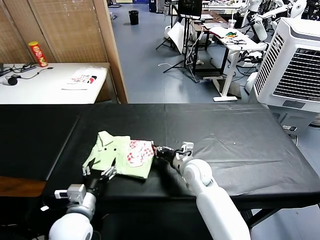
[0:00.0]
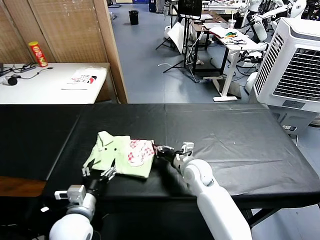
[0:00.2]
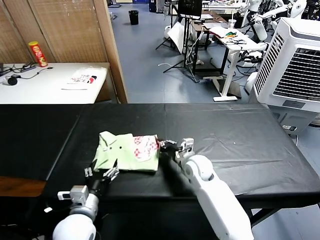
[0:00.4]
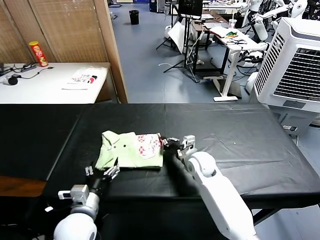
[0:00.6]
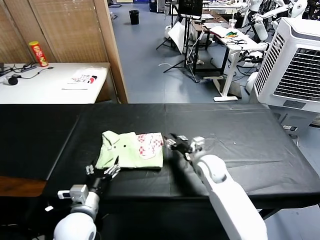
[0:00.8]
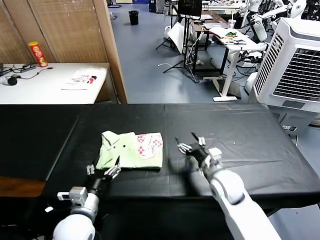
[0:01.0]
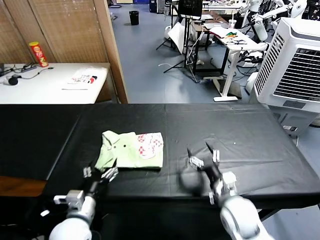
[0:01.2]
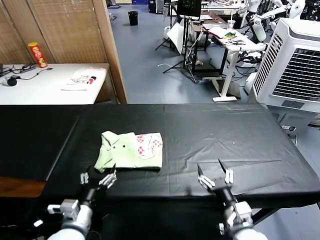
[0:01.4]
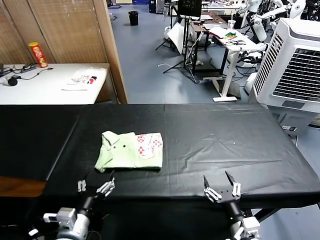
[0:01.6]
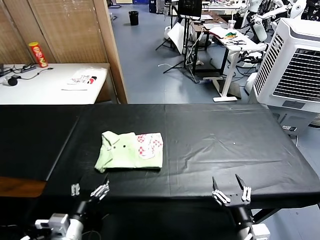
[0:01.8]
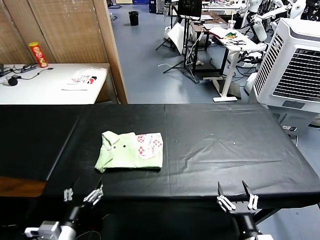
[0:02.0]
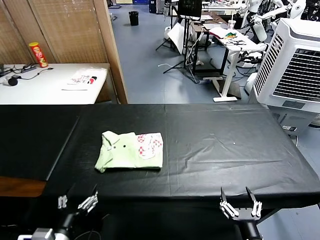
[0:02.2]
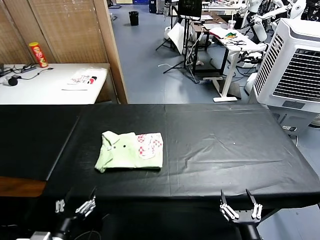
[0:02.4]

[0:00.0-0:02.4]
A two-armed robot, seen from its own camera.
Task of the whole recording: fold and organize the clothes.
0:00.0 to 0:01.2: The right gripper travels backward and to the right by about 15 cm, and opens.
0:01.2 to 0:02.4: The left gripper travels backward by some 10 cm; the right gripper moves backward, about 20 cm.

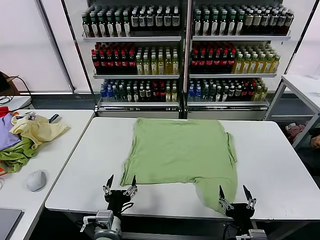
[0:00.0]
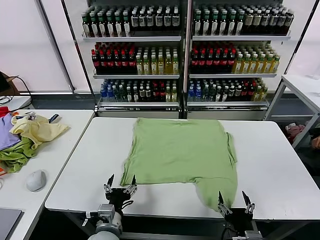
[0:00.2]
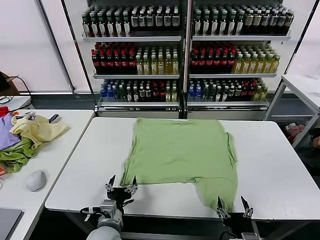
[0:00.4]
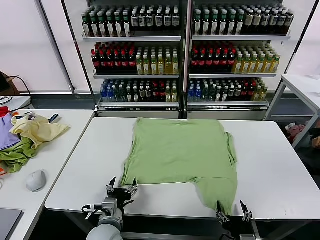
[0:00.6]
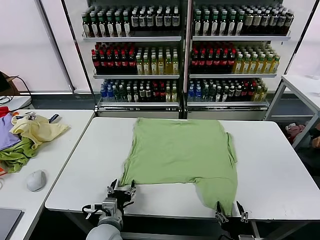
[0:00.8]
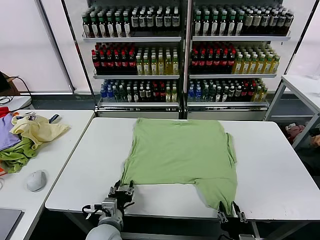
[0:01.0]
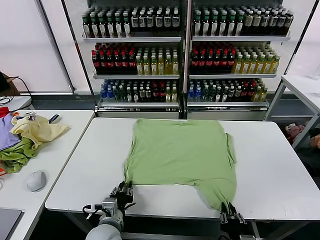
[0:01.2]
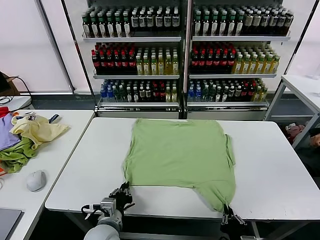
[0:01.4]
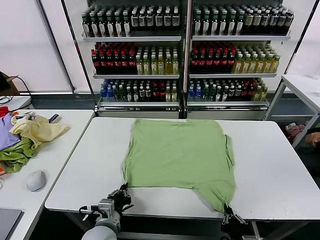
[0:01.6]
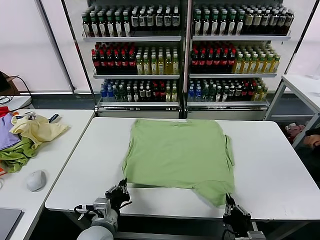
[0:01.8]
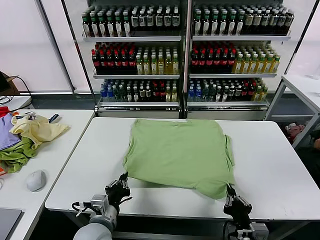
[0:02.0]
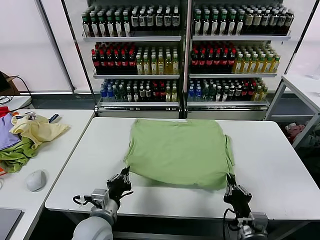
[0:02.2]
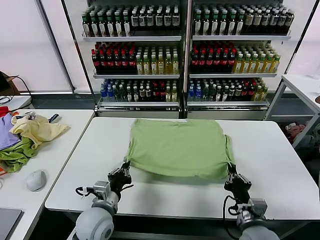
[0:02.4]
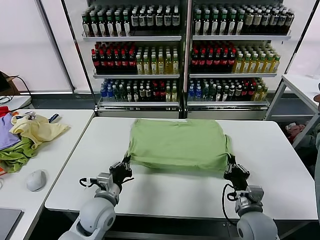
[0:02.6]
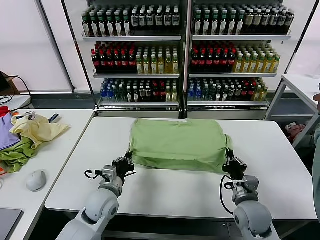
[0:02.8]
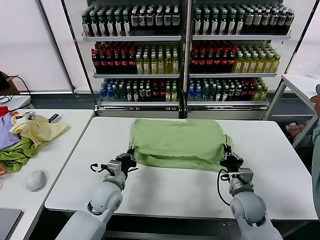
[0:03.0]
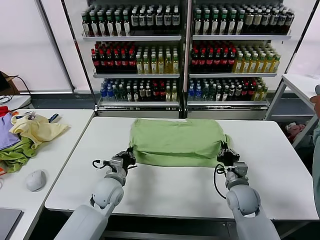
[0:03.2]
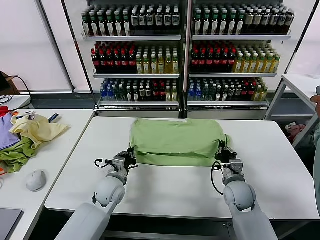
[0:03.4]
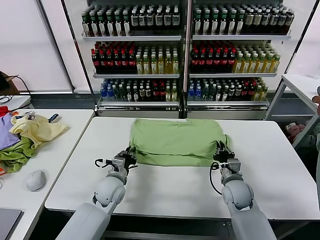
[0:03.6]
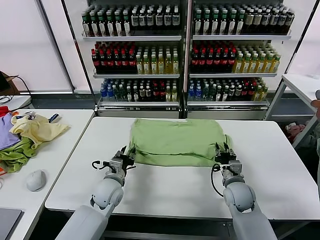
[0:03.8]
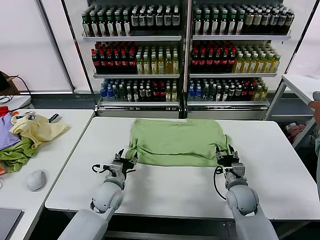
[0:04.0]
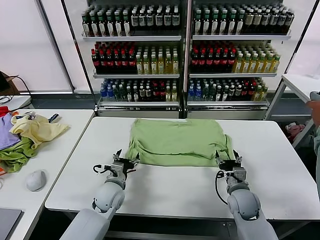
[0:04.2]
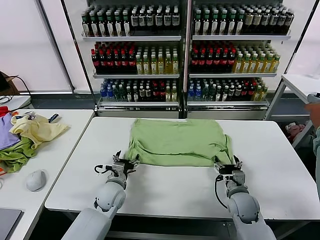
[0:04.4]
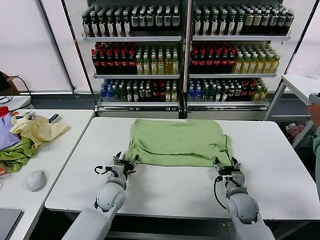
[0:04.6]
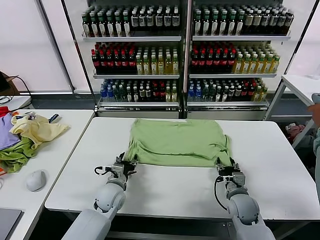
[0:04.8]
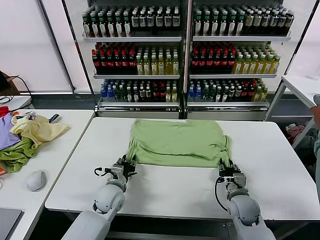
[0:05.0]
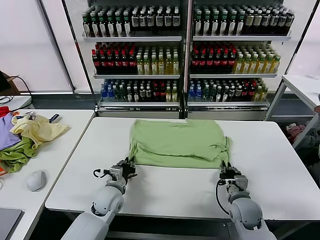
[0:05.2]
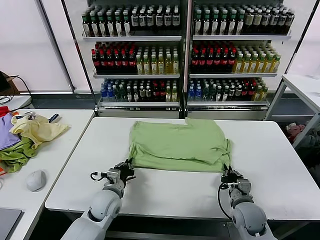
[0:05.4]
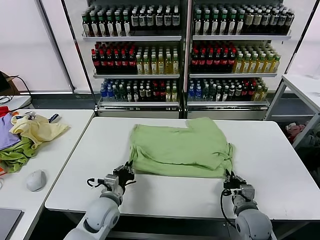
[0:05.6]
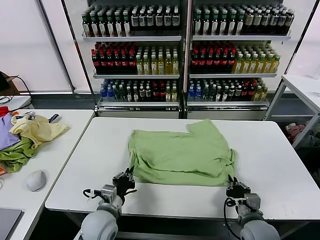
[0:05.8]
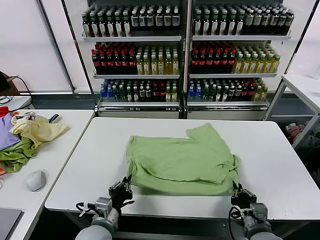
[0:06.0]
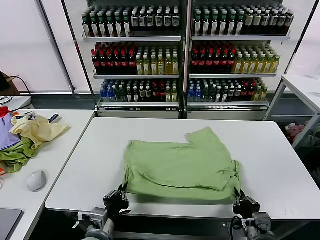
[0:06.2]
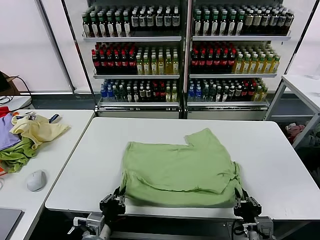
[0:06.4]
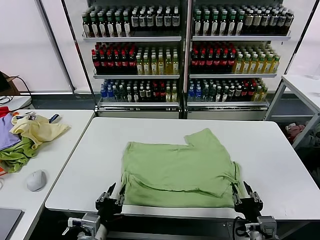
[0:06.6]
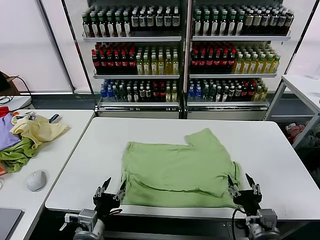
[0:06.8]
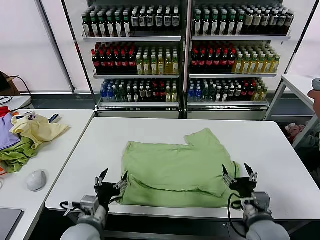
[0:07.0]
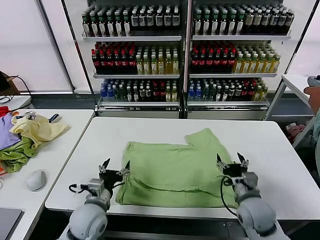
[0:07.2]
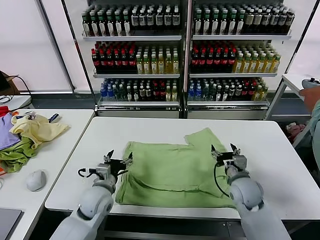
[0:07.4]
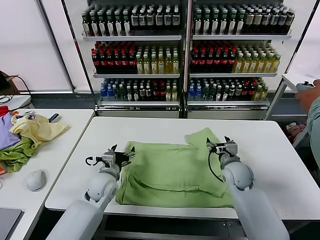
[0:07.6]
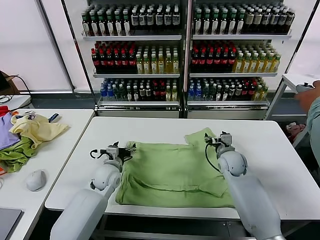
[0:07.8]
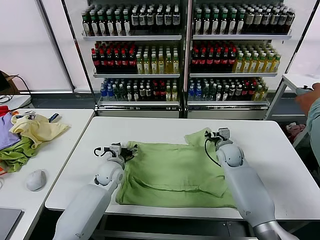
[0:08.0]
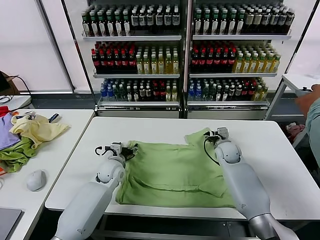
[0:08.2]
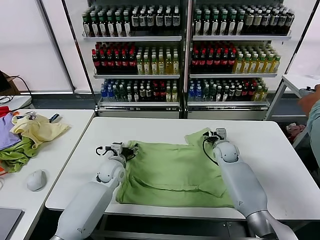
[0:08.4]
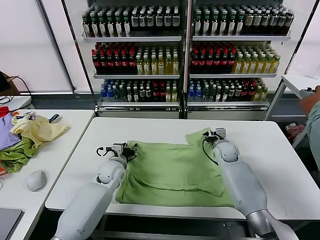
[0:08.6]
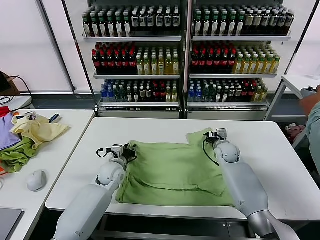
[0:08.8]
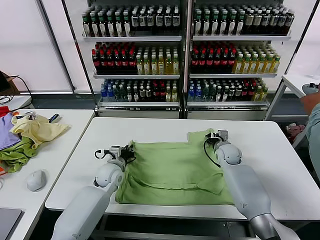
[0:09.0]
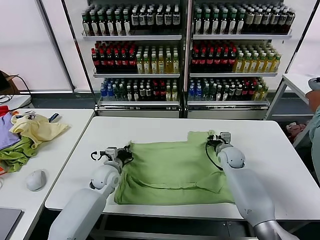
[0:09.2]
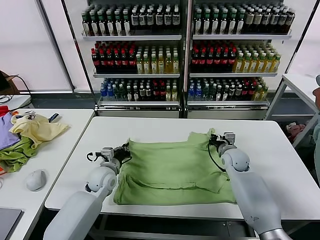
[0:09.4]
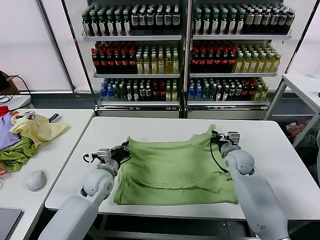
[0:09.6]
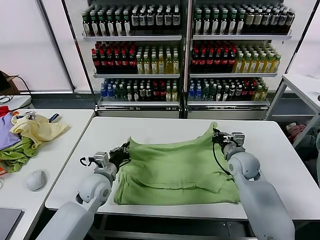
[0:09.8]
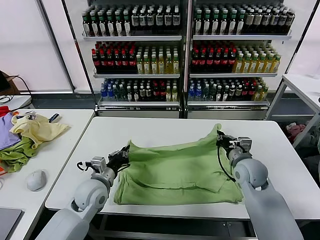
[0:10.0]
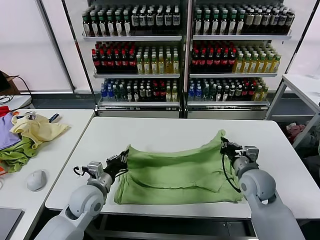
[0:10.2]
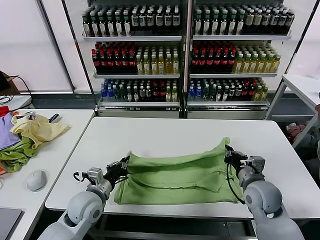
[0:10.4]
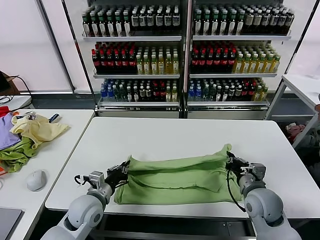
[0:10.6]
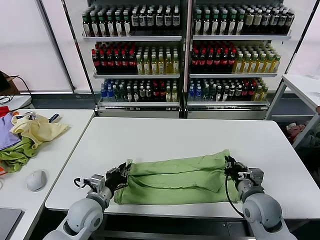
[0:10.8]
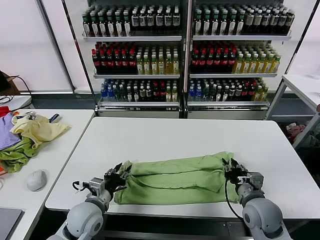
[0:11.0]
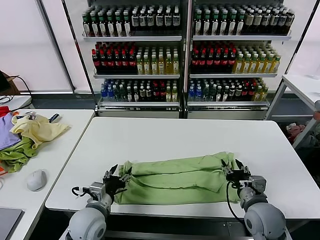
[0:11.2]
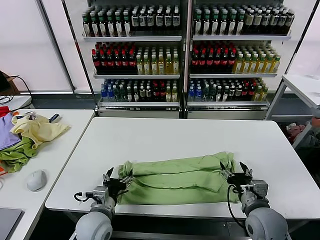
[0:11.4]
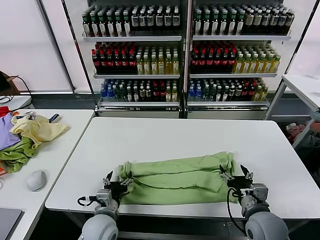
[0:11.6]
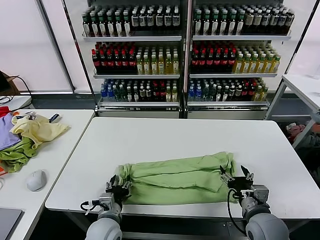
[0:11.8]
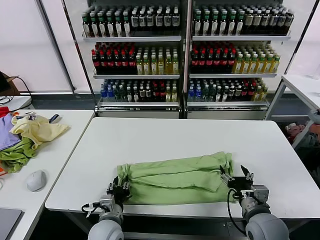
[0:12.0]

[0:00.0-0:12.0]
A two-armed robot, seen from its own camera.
Task of the whole recording: fold and organize the clothes.
Step, 0:00.0 to 0:01.6: use both grippers simultaneously to clamp the lower edge of the clothing fabric.
Step, 0:01.8 to 0:03.8: use both grippers to drag the lower edge of the fabric forward and fold it over the upper edge.
Step, 0:04.0 to 0:06.4: Drag the clothes downward with both gripper.
Step, 0:06.8 to 0:09.0: use both grippers simultaneously to clamp the upper edge of the clothing fabric.
Step, 0:09.2 to 0:11.0: use both grippers to drag the upper edge of the fabric backward and fold it over the lower edge.
0:01.6 to 0:03.0: Both grippers move forward, approximately 20 cm.
0:03.0 to 0:04.4: The right gripper opens up, while the left gripper opens up.
0:04.4 to 0:06.0: The grippers both shift backward by roughly 15 cm. The right gripper closes up. The left gripper closes its fingers.
0:06.0 to 0:07.6: Both grippers travel together forward, about 20 cm. The right gripper opens, while the left gripper opens.
0:07.6 to 0:09.0: The right gripper heads forward, covering about 10 cm, and closes up, while the left gripper shifts by roughly 5 cm, and closes its fingers.
0:09.0 to 0:10.4: The right gripper travels backward by approximately 20 cm. Meanwhile the left gripper heads backward, covering about 15 cm.
0:10.4 to 0:12.0: The right gripper heads backward, covering approximately 10 cm, and opens up. Meanwhile the left gripper goes some 10 cm backward, to the right and downward, and opens its fingers.

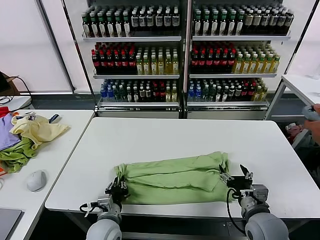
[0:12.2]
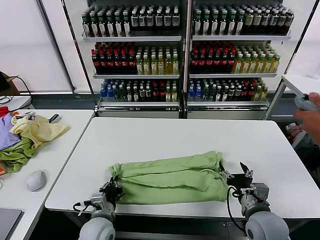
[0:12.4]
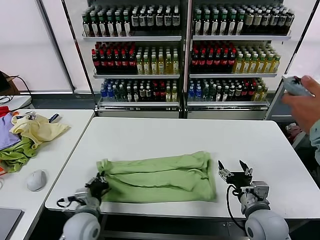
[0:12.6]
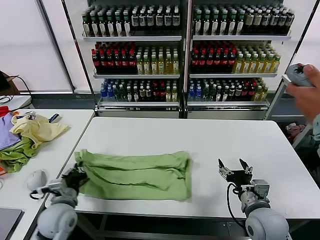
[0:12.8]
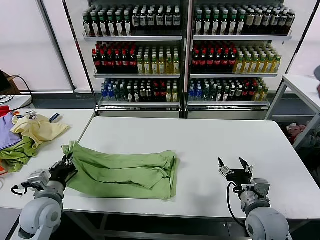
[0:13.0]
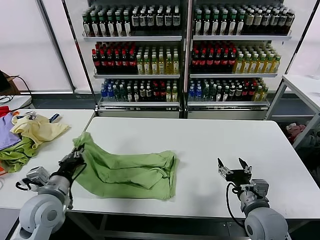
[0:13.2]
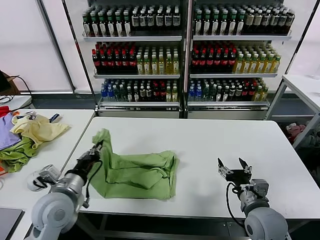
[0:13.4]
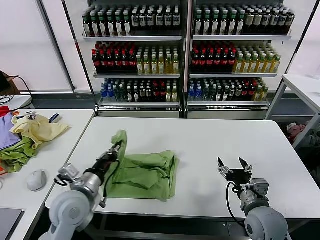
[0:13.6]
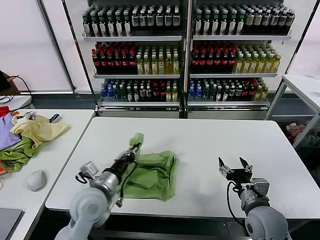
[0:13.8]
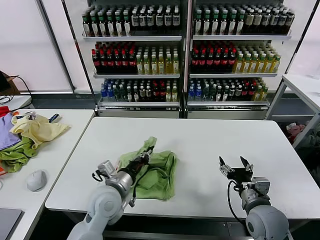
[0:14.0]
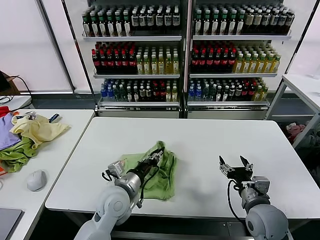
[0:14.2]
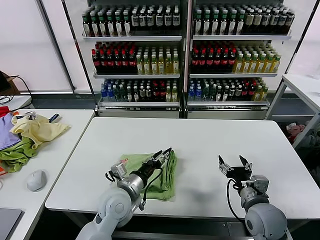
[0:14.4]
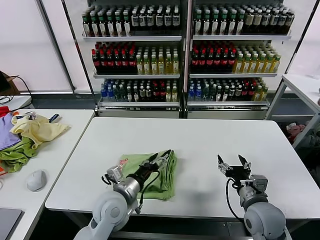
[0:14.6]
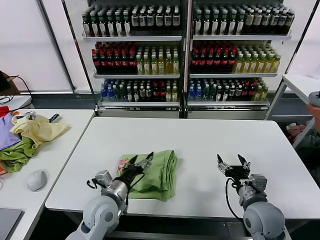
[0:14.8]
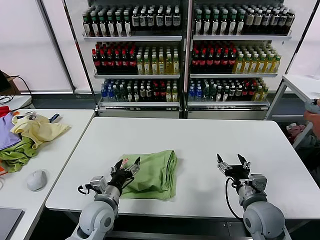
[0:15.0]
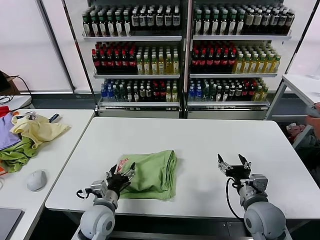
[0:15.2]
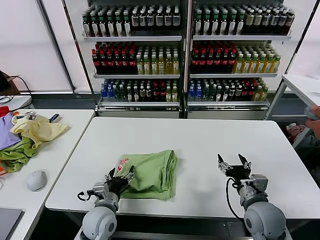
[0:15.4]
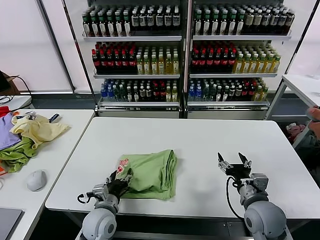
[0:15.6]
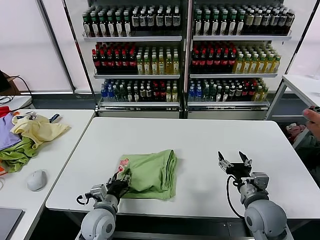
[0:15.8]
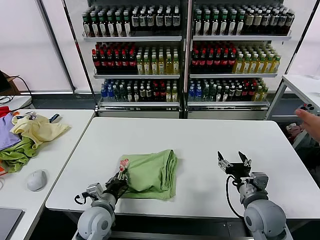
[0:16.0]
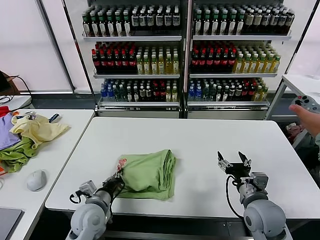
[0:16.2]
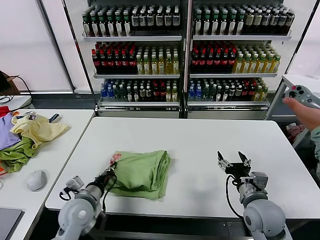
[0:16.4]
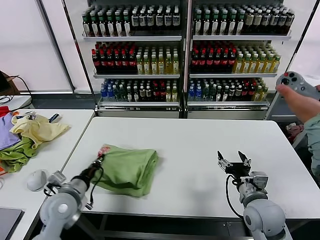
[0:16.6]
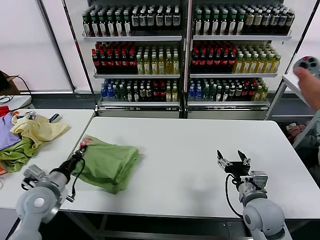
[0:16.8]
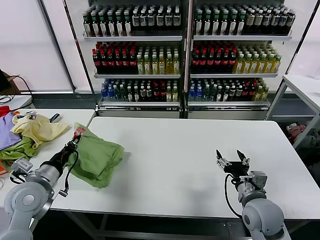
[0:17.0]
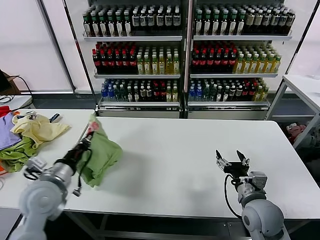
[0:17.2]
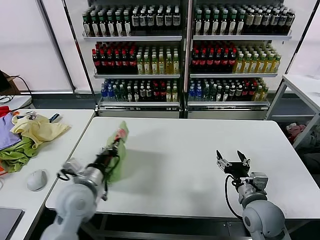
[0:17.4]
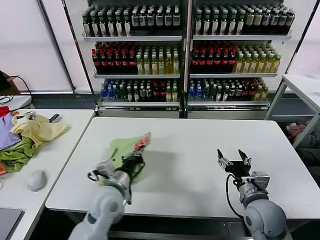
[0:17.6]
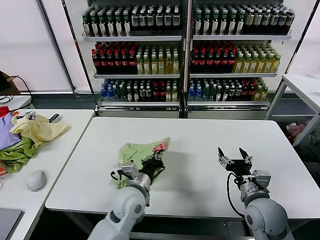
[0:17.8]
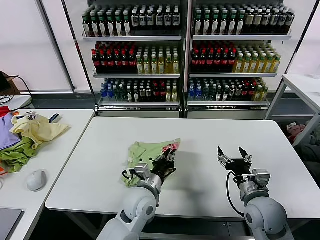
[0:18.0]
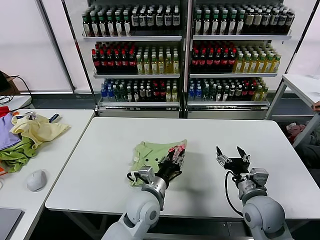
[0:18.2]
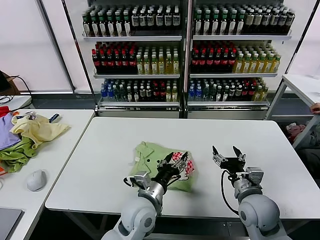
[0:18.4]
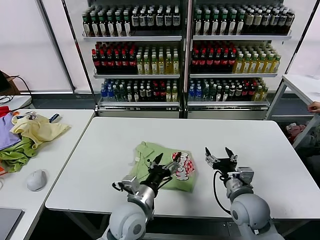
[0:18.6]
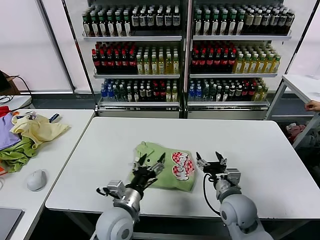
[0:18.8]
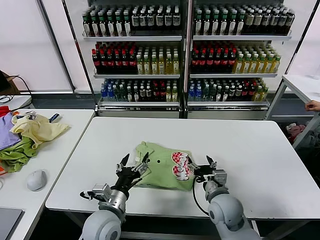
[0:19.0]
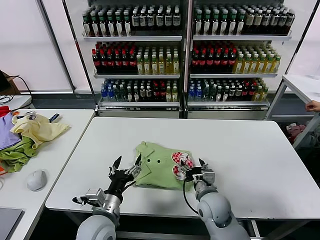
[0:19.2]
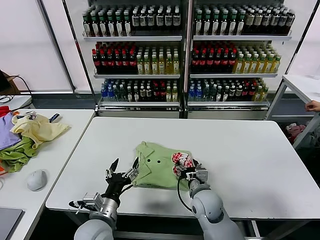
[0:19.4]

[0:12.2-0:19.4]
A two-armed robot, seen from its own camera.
Task of the whole recording: fold and organize the clothes.
Step, 0:12.4 to 0:14.2: use the left gripper to drag the left edge of the fabric to the left and folds it over the right edge.
Step, 0:14.6 to 0:18.2: Flip the folded clothes over with left gripper.
0:12.2 to 0:13.6: The left gripper travels upward and to the left by about 15 cm.
0:13.6 to 0:15.0: The left gripper shifts roughly 10 cm downward, and opens its fingers.
0:15.0 to 0:16.6: The left gripper moves to the left, some 10 cm, and closes its fingers.
0:16.6 to 0:18.0: The left gripper shifts some 25 cm to the right.
0:18.0 to 0:19.4: The right gripper is displaced to the left, downward and forward by roughly 15 cm. Meanwhile the left gripper moves to the left and backward, approximately 15 cm, and opens its fingers.
